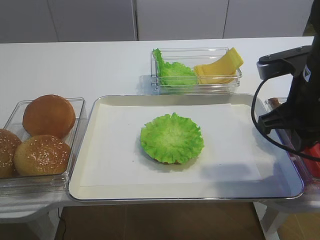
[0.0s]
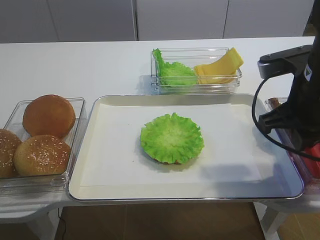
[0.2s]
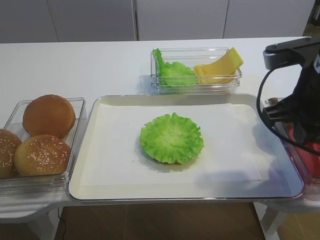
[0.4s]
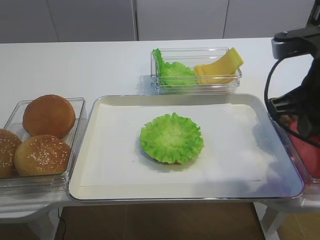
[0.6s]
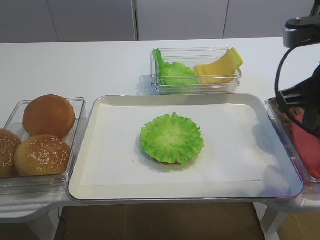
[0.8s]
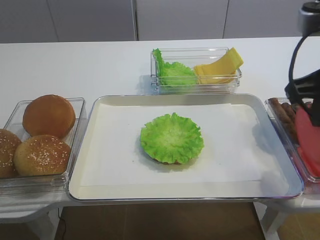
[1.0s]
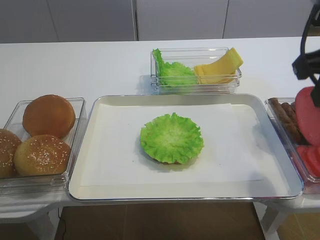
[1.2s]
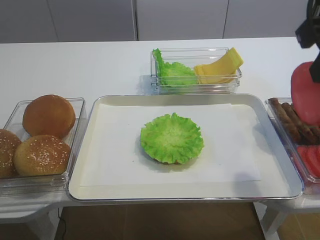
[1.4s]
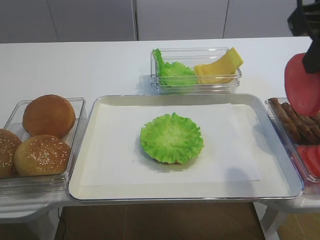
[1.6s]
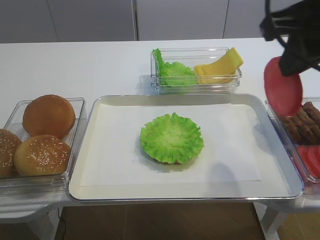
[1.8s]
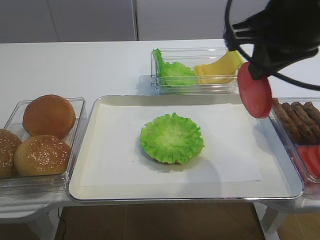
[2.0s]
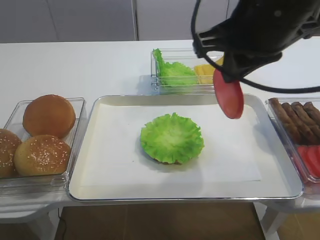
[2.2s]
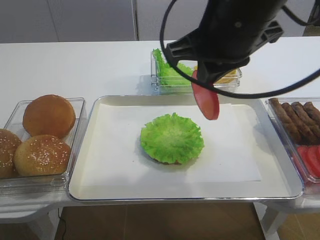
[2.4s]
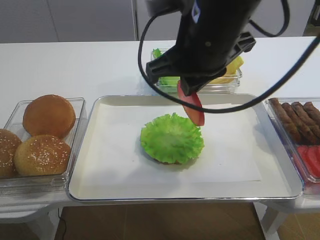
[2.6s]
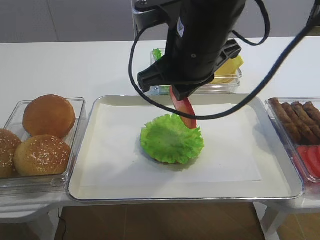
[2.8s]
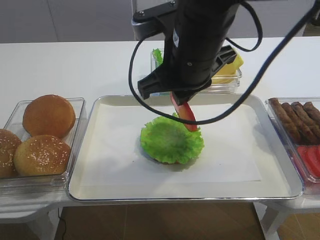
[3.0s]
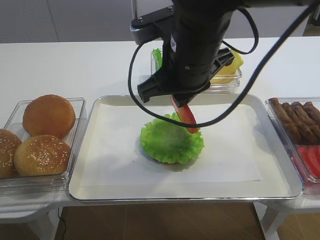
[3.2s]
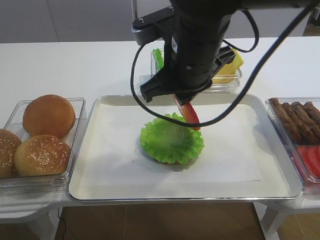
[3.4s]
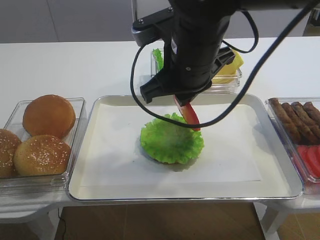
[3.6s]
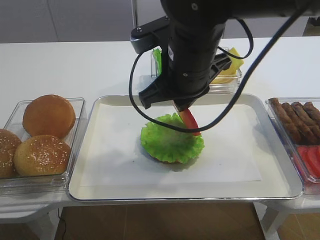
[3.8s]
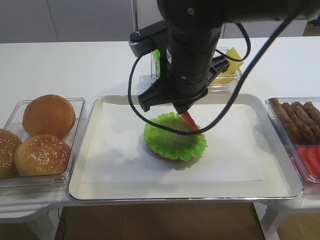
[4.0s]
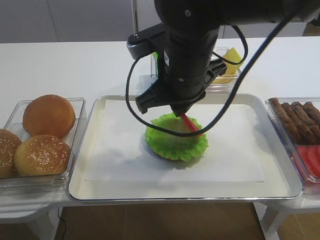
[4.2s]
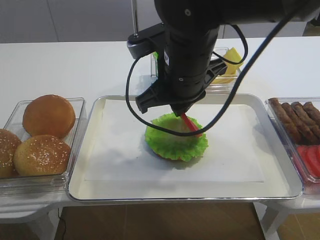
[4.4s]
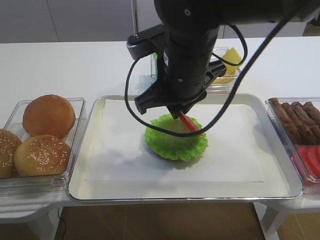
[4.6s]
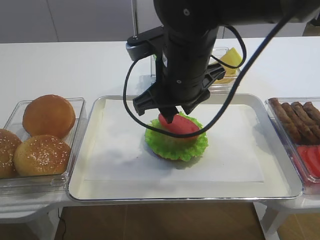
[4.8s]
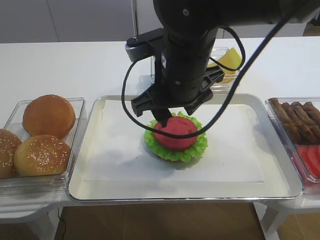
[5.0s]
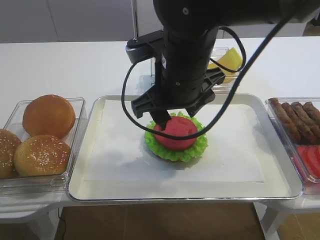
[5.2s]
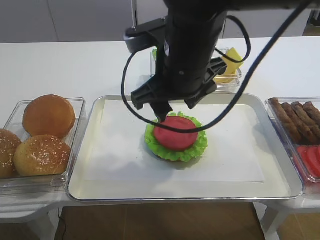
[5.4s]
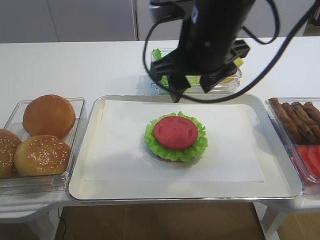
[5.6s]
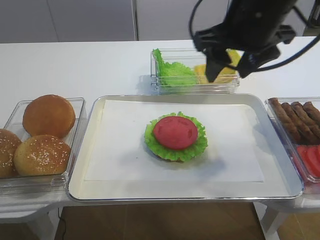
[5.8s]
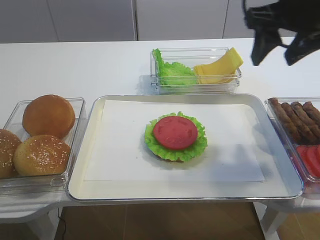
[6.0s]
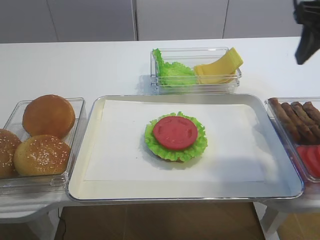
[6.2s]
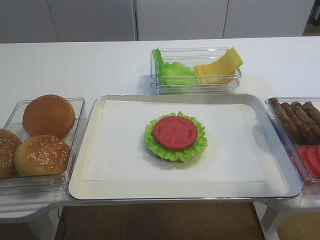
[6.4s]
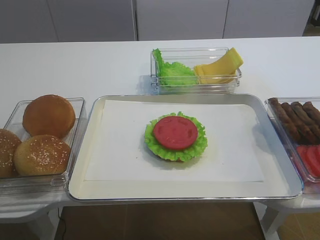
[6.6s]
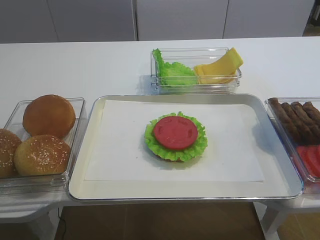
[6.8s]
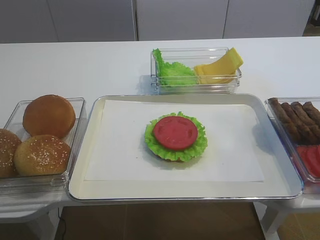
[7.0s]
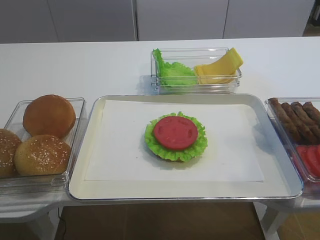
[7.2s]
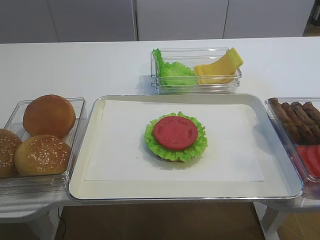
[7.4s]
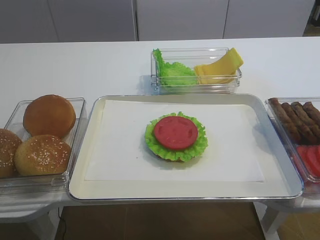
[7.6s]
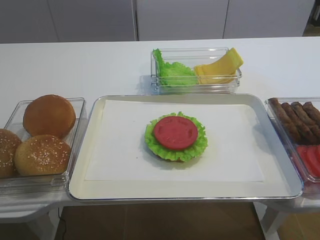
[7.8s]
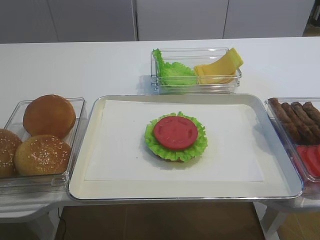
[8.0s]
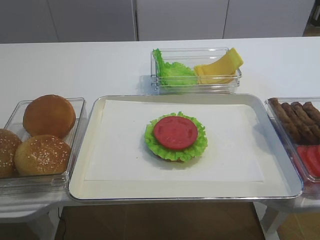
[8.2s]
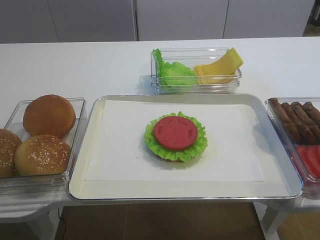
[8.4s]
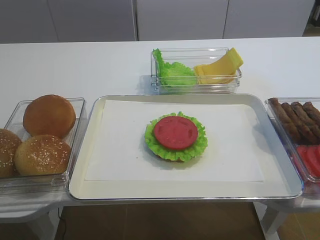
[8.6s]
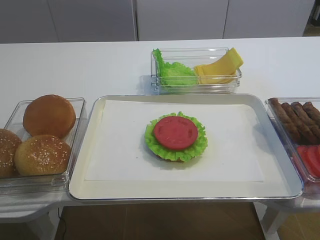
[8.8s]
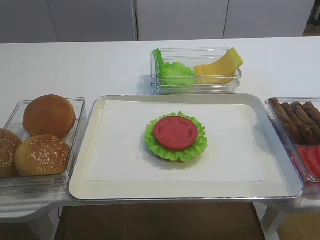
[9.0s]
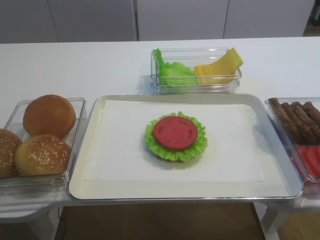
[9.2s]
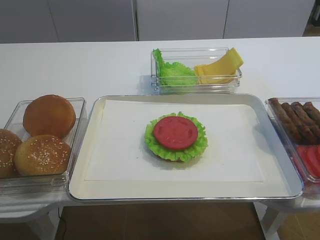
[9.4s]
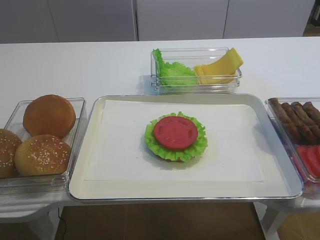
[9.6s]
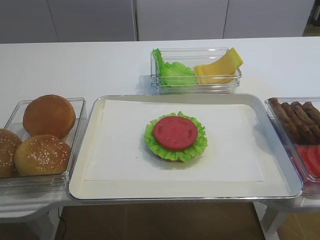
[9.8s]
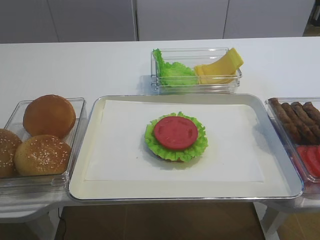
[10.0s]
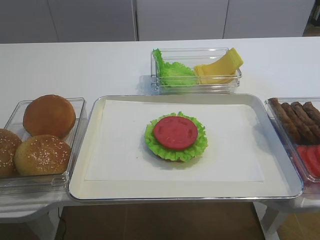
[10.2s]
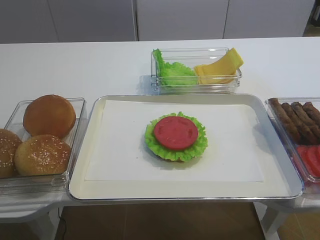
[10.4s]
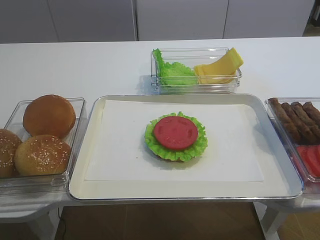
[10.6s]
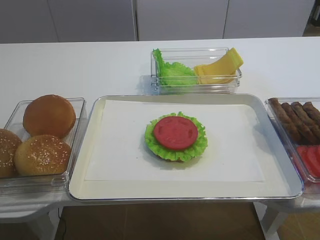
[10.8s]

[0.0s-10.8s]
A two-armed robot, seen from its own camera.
Step, 1.2s to 5.4s: Place the tomato slice on the lettuce leaf with the right gripper.
0.0s to 1.6s: The right gripper travels upward by about 15 cm.
1.6s to 3.0s: The right gripper travels to the left and downward by about 15 cm.
3.0s to 4.6s: There are only small adjustments of the grippers.
4.6s to 6.2s: The right gripper is displaced to the right and upward by some 25 cm, and opens up.
6.2s to 7.8s: The right gripper goes roughly 30 cm backward.
9.2s to 10.8s: Both grippers stay about where they are.

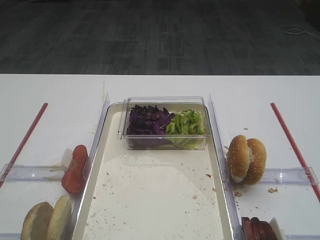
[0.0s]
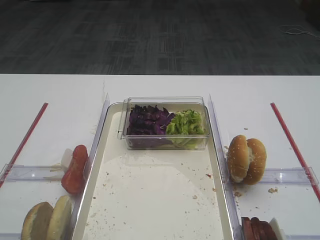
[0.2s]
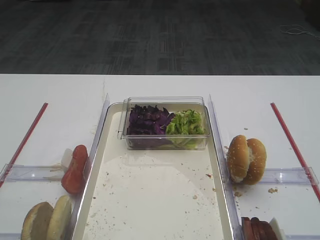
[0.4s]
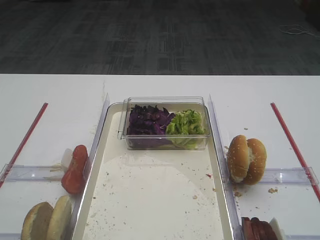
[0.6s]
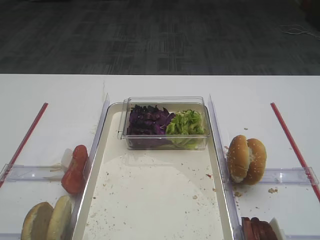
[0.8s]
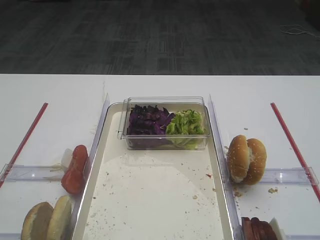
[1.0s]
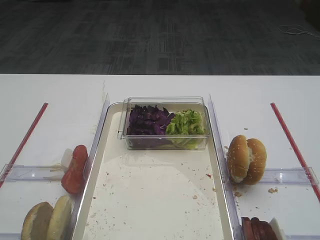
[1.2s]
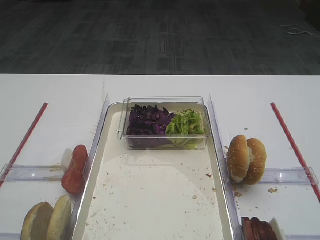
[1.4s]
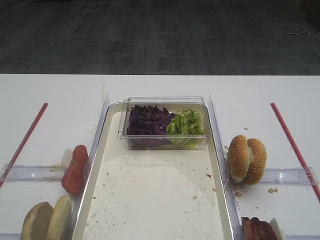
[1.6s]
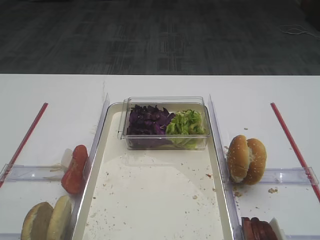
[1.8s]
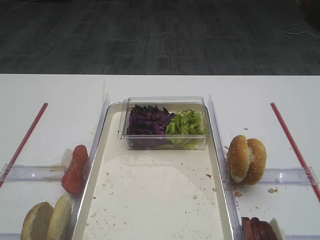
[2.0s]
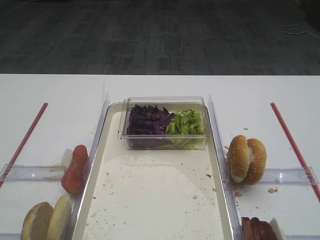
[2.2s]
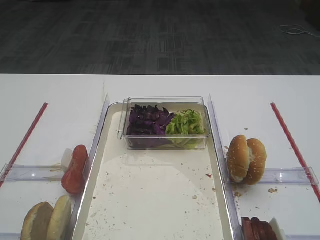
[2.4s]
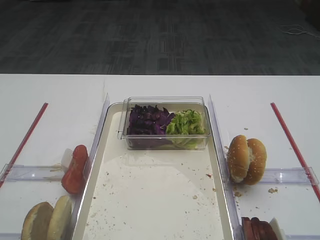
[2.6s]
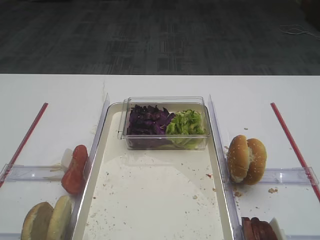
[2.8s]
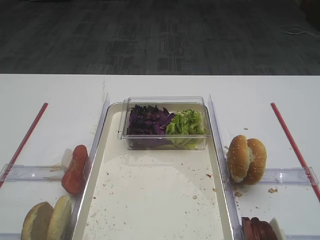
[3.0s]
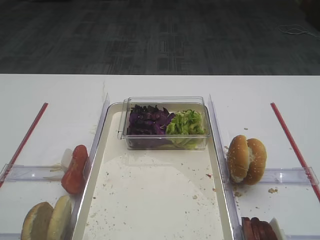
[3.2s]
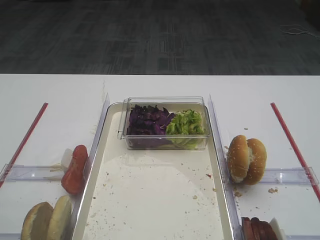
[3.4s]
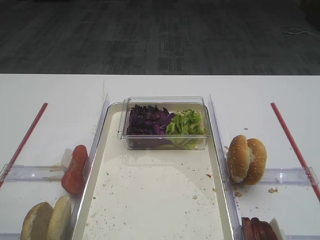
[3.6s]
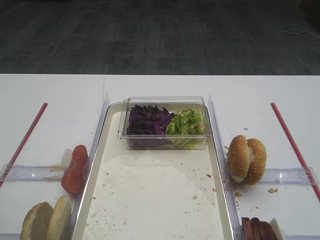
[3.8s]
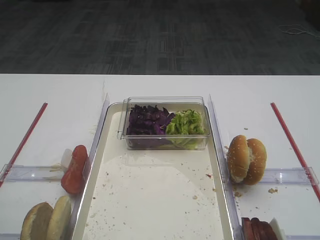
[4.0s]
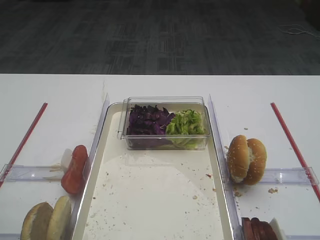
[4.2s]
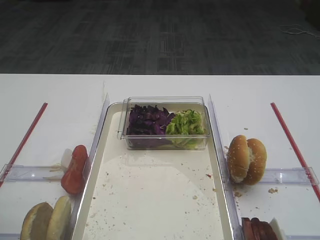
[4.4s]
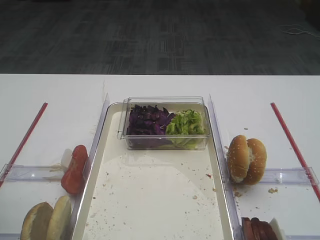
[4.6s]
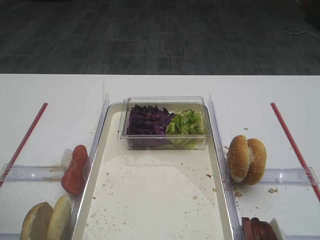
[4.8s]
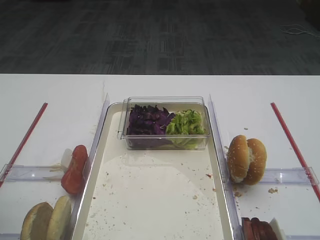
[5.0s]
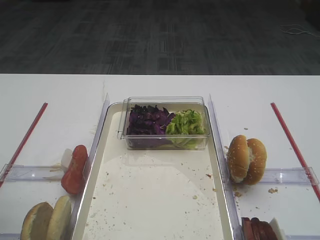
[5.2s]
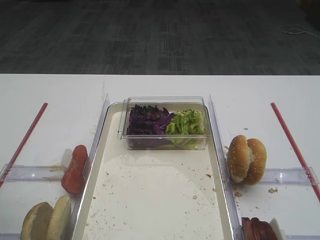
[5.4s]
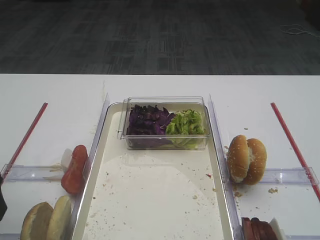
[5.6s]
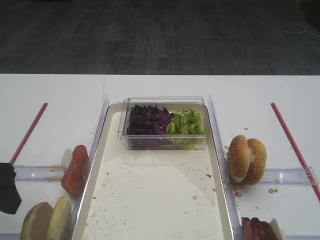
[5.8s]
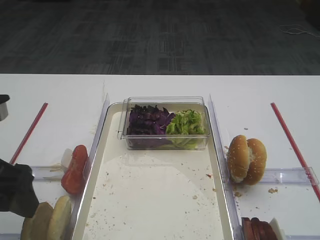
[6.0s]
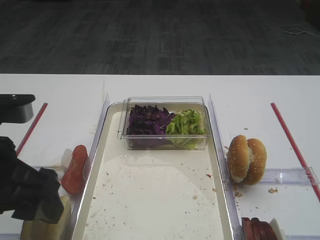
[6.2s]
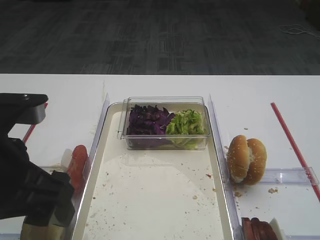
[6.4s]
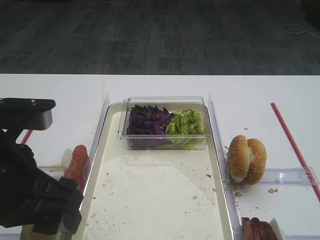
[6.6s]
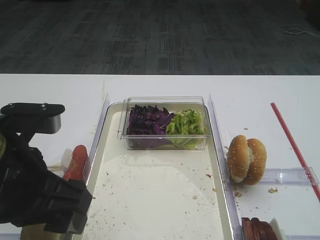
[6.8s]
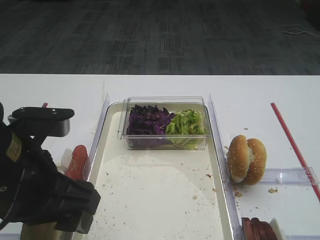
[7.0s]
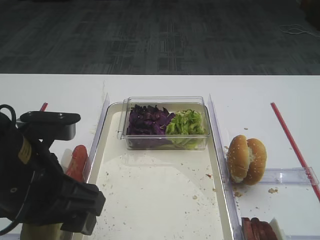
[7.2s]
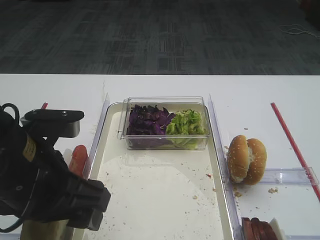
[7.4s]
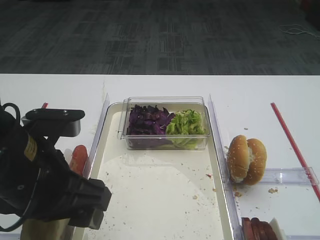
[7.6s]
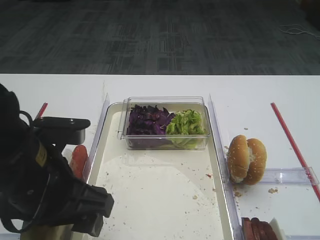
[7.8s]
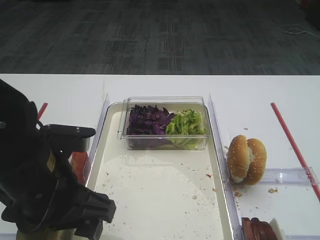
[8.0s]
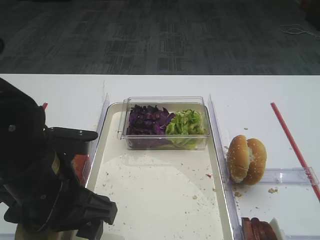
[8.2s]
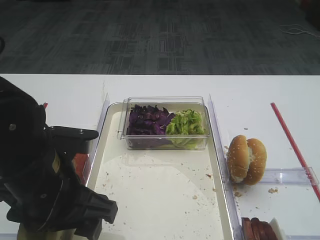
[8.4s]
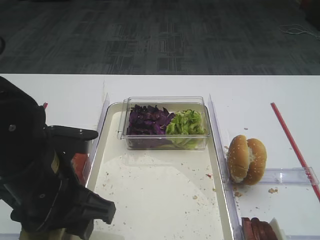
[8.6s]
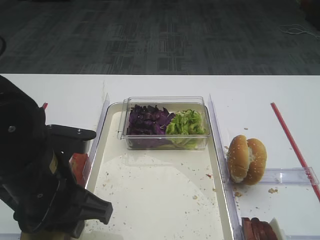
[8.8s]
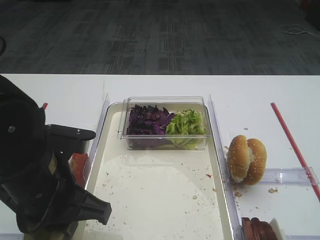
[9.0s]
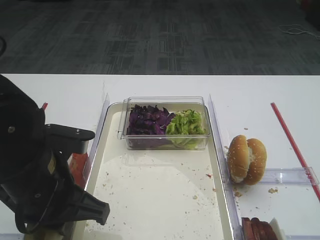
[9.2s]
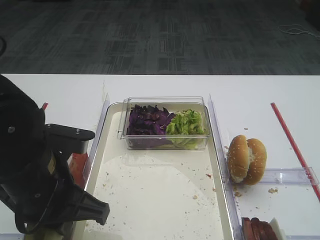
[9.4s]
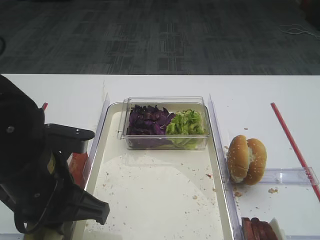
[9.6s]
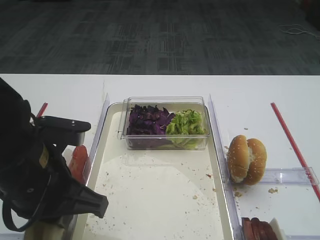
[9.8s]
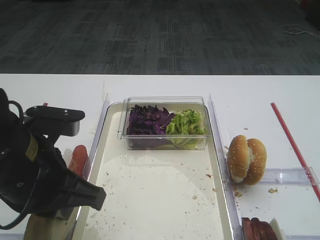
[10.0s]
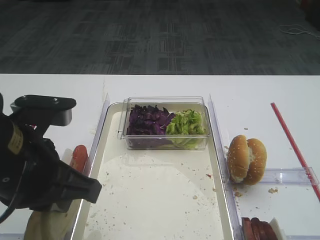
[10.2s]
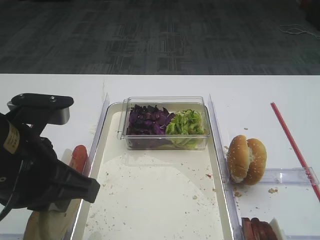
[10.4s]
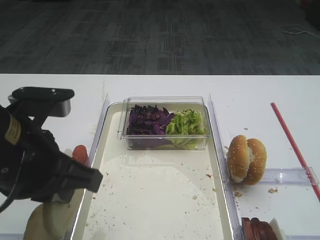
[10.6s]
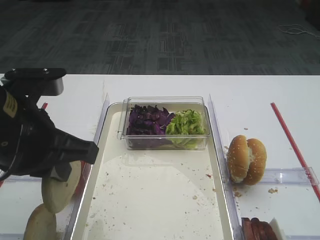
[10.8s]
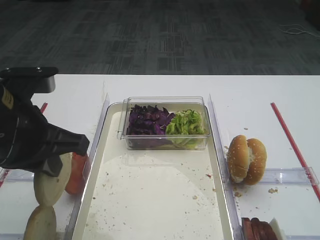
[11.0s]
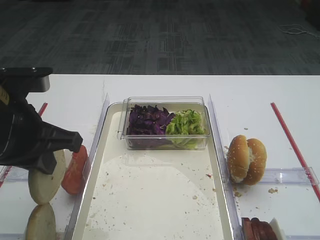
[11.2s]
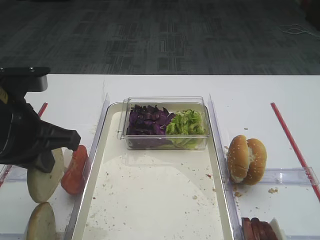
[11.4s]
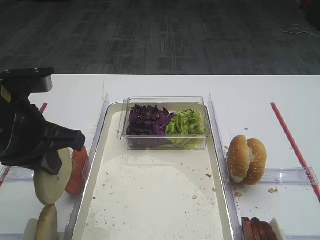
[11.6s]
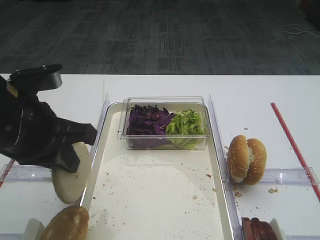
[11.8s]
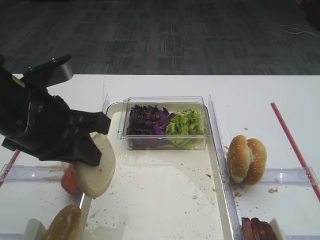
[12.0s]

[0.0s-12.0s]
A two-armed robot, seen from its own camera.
Step, 0.0s to 10.8s: Pick up the bread slice with the left gripper.
4.4s to 6.0s: The left gripper moves to the right, about 5 cm.
6.0s to 7.6s: The left gripper is displaced to the right by some 10 cm.
7.6s to 9.0s: The left gripper closes.
9.0s to 10.4s: The left gripper moves upward, some 5 cm.
10.4s to 12.0s: The left gripper moves roughly 5 cm.
